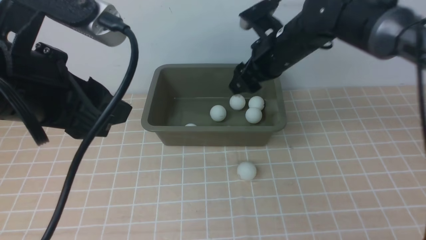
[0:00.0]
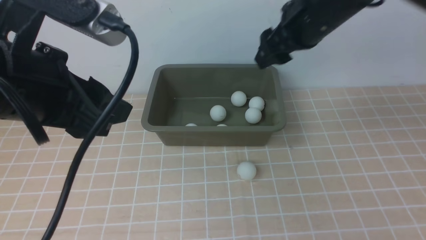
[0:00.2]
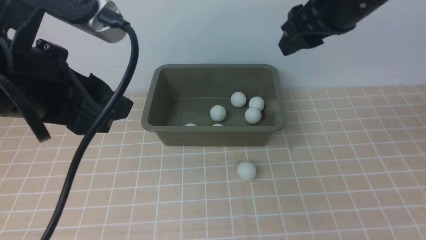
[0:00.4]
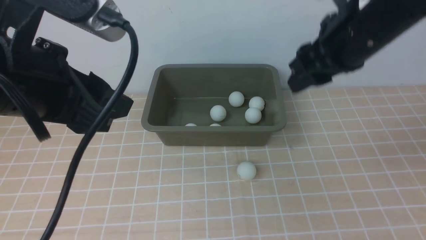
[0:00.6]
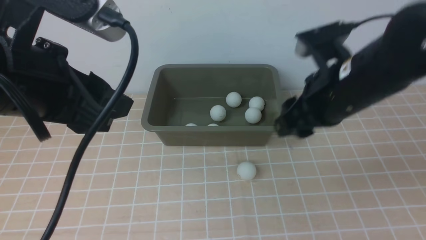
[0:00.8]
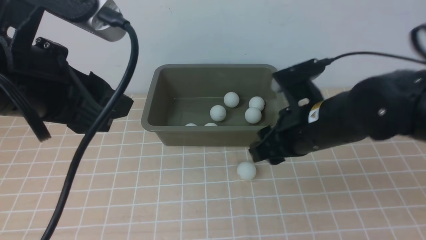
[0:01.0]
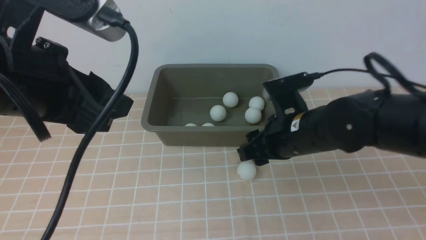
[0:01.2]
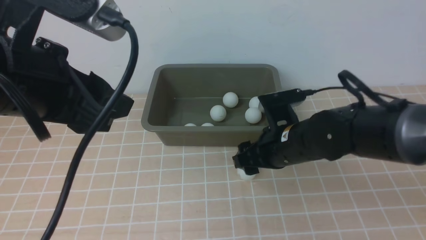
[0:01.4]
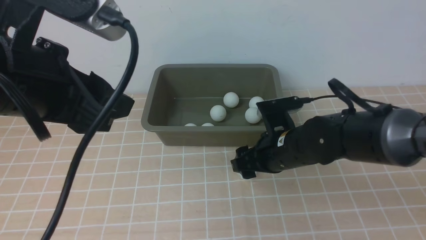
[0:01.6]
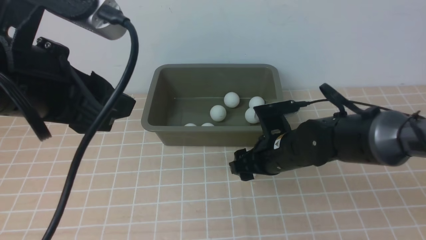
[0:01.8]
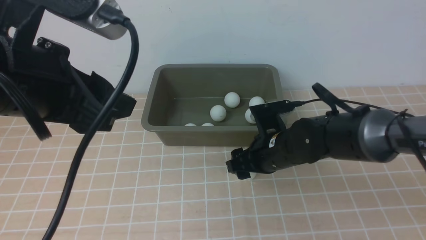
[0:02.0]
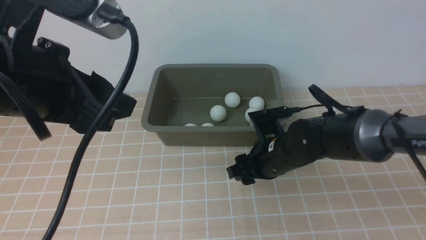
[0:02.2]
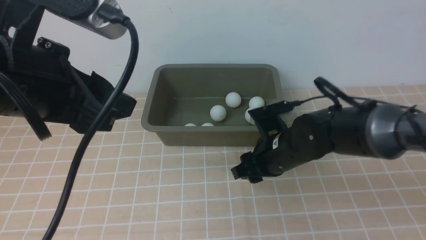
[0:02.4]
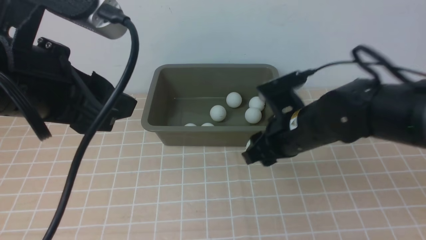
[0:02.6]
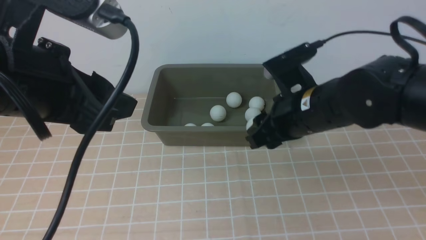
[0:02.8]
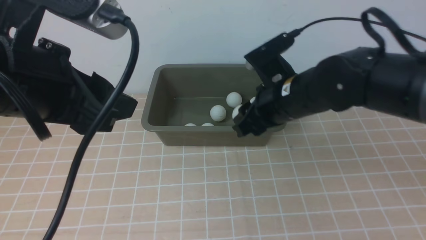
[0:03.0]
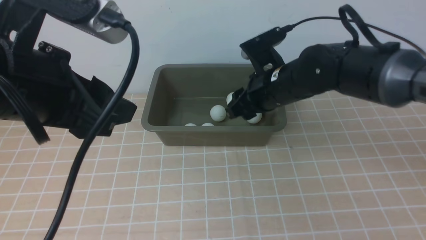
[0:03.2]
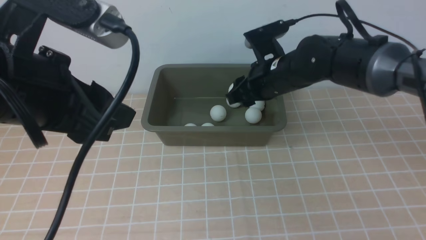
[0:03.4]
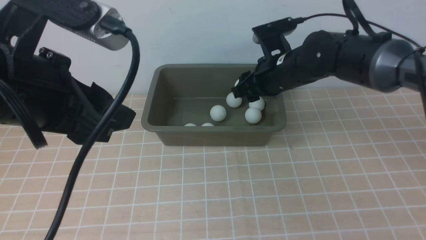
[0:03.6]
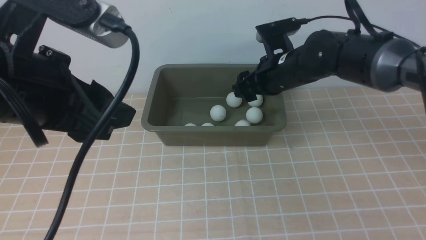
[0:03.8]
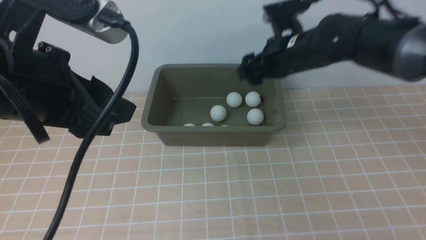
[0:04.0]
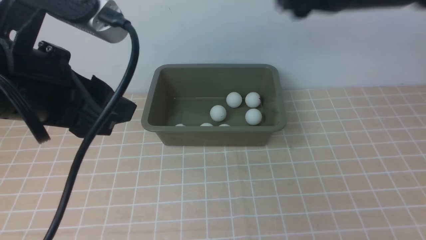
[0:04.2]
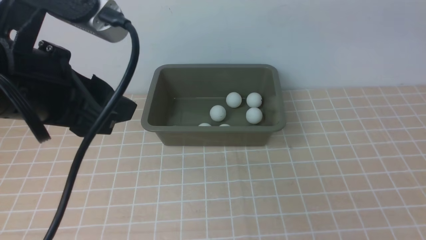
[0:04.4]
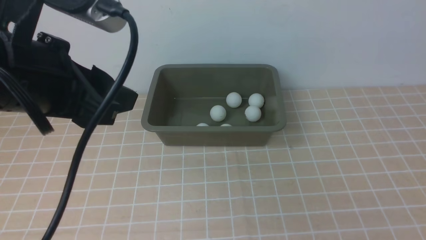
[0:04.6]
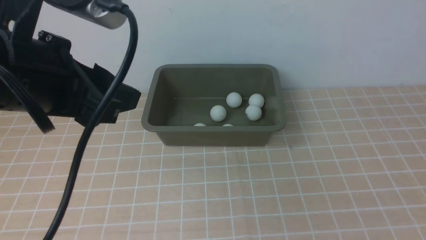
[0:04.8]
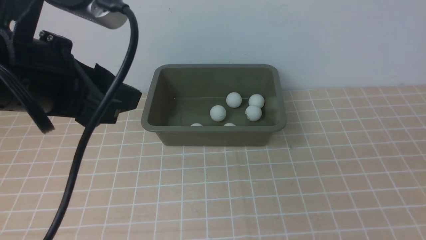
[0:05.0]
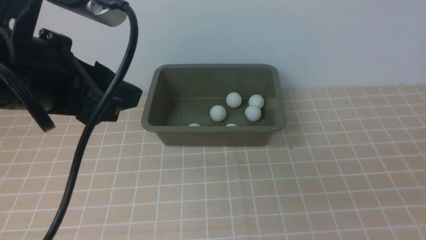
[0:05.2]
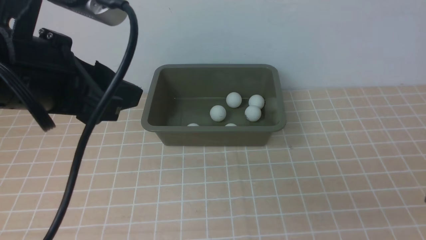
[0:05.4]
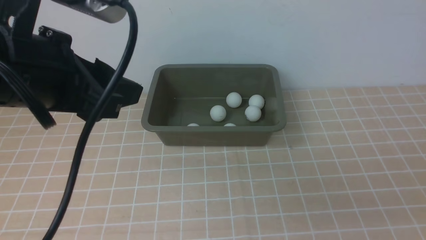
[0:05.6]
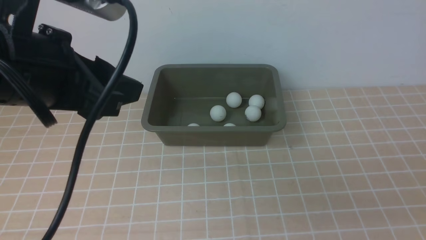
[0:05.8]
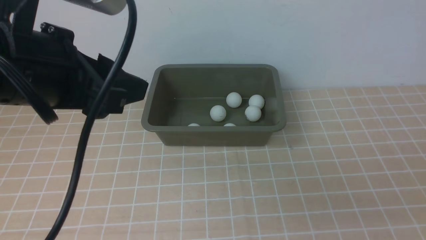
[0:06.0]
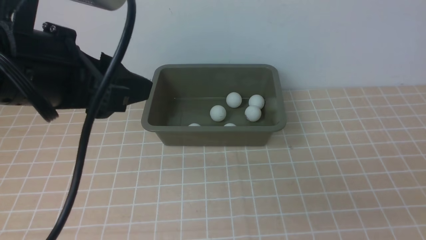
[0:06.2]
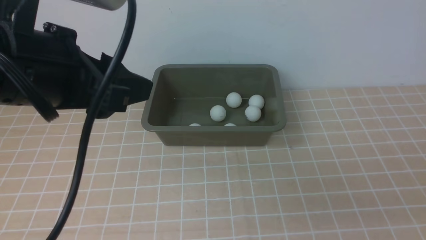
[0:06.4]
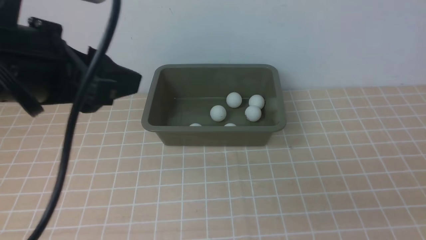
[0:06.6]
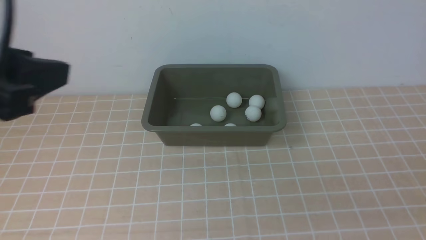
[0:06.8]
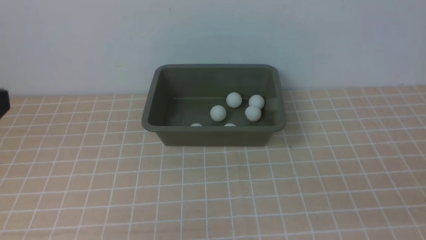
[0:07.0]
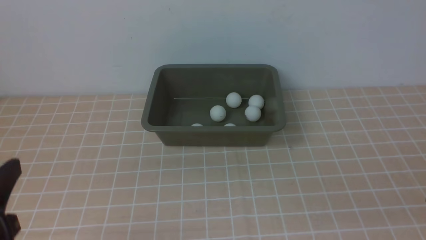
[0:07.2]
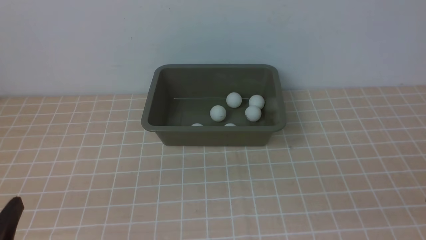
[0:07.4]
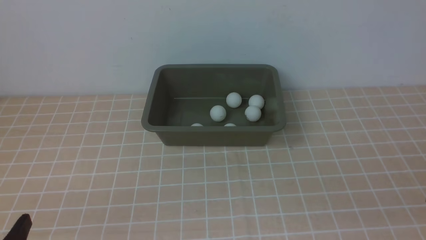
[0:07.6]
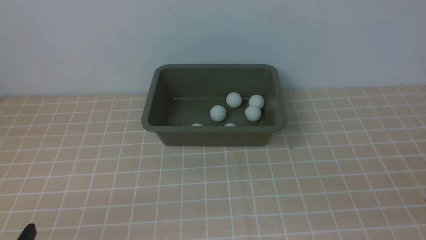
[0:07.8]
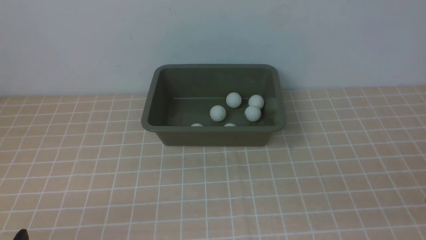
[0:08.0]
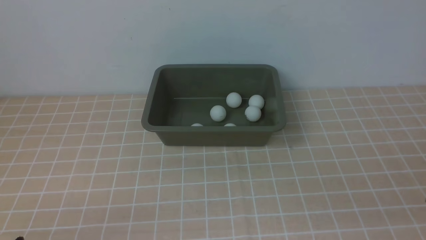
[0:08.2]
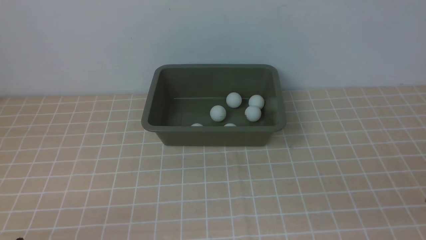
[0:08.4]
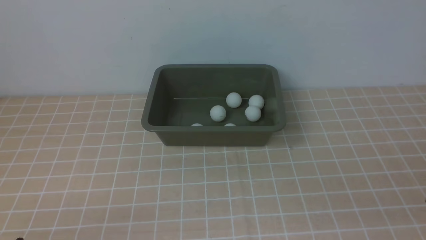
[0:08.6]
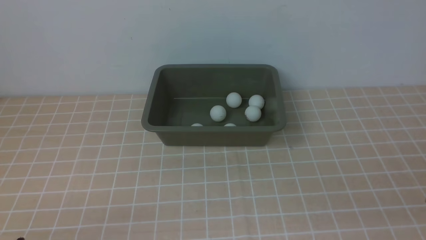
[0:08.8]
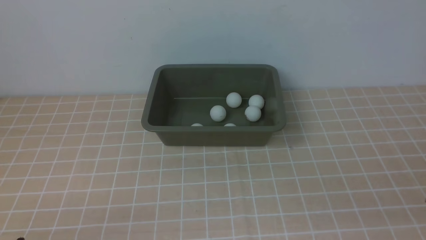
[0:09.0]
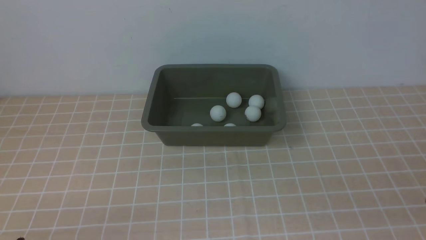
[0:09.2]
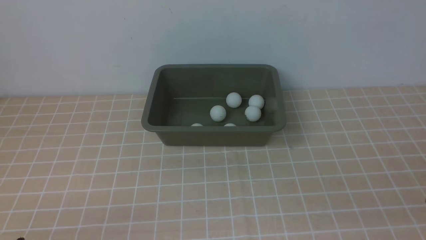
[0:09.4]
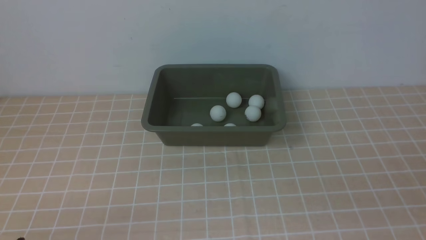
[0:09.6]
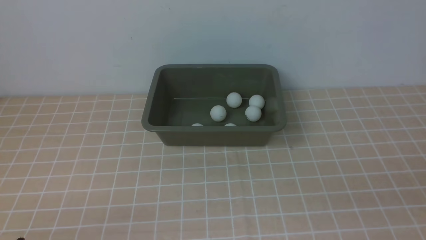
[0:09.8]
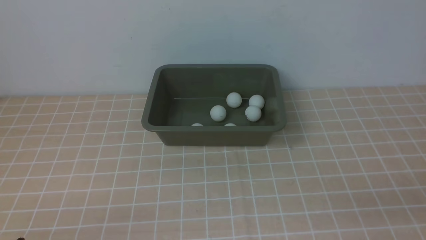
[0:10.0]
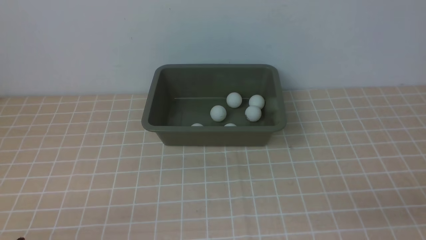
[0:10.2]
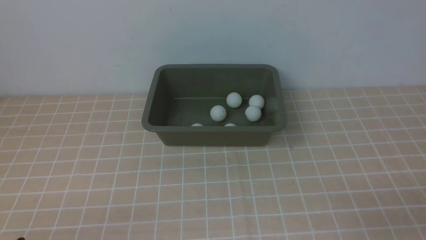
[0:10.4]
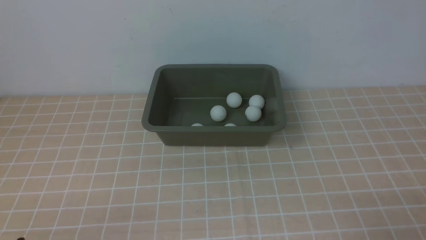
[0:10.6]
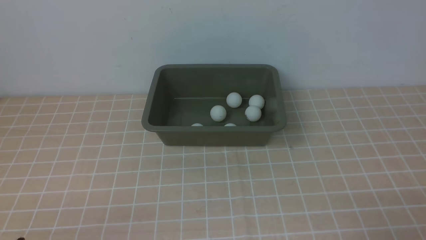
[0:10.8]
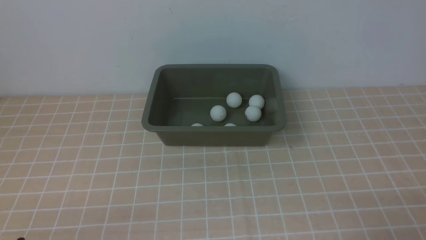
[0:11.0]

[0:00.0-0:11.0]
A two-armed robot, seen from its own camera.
Step, 0:00.2 to 0:02.6: use the right arm to clamp the table tennis ball closest to it.
Step, 0:02.8 to 0:04.0: use the right arm to put the table tennis ball into the box.
0:00.0 to 0:01.6: The right gripper moves downward and backward, about 15 cm.
0:01.6 to 0:03.2: The right gripper moves upward and forward, roughly 10 cm.
0:03.2 to 0:04.8: The right gripper shifts some 35 cm backward, to the right and upward.
0:06.2 to 0:07.8: The left gripper is displaced downward, backward and to the left by approximately 30 cm.

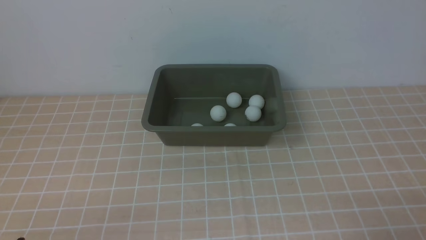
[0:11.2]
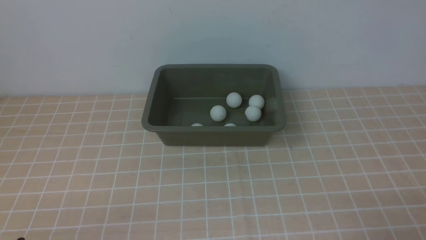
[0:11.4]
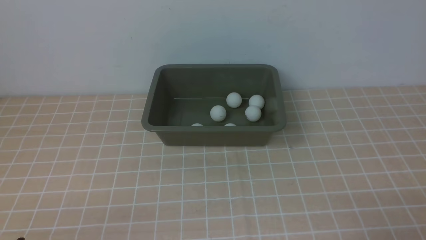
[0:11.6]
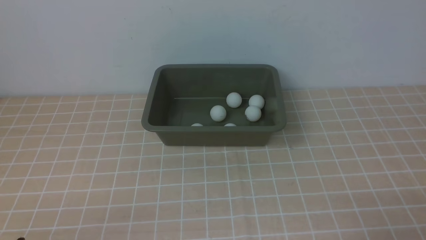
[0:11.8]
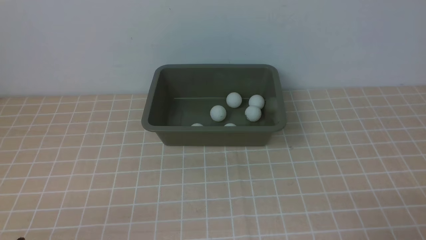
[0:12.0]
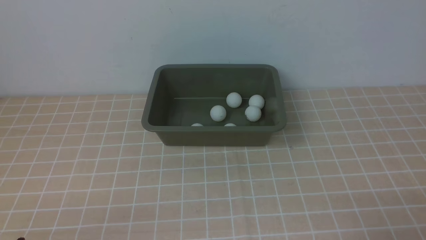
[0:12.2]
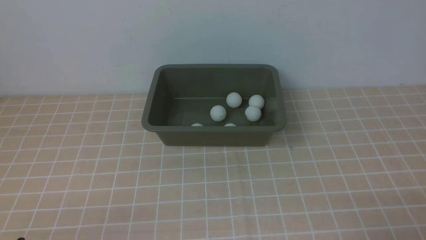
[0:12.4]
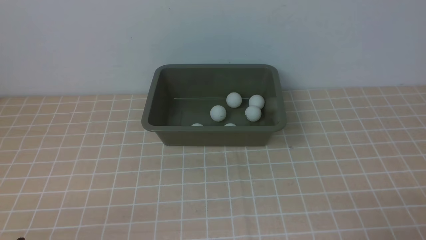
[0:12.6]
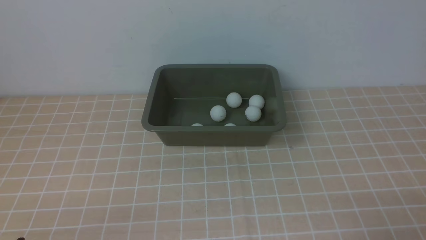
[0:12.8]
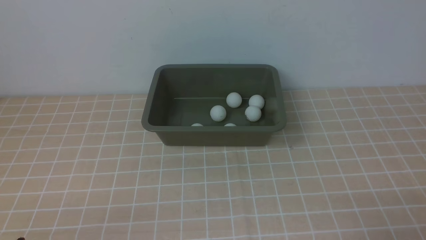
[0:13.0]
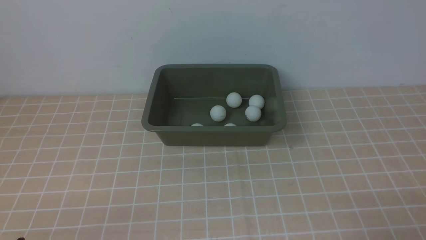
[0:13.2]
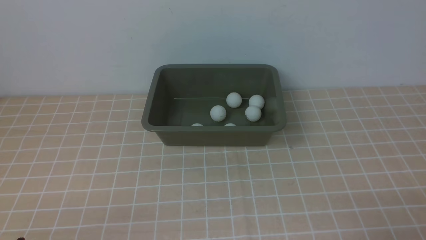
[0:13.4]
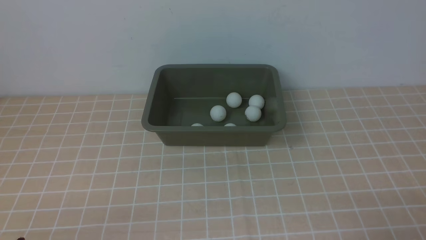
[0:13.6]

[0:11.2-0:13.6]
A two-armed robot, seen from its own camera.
0:11.2 to 0:13.6: Both grippers stay about where they are.

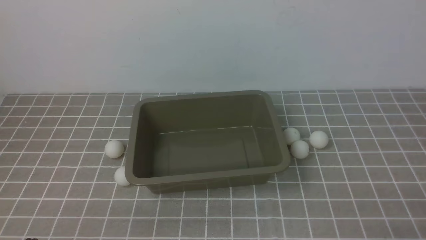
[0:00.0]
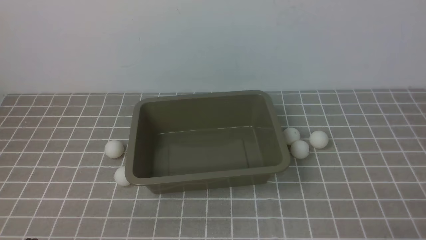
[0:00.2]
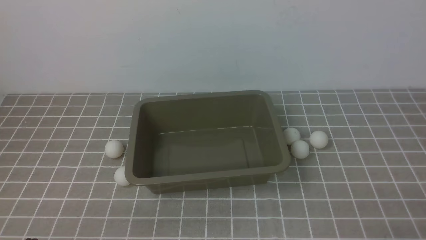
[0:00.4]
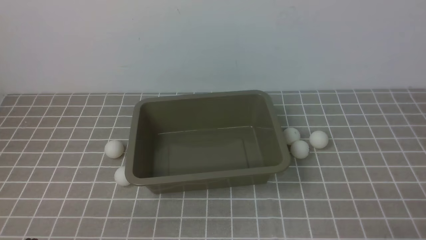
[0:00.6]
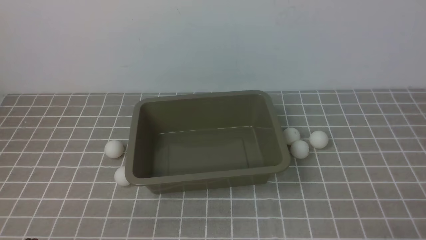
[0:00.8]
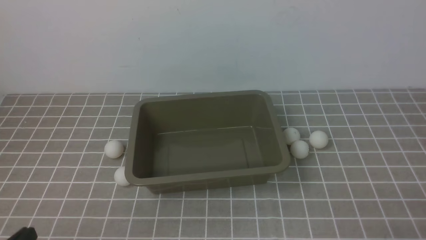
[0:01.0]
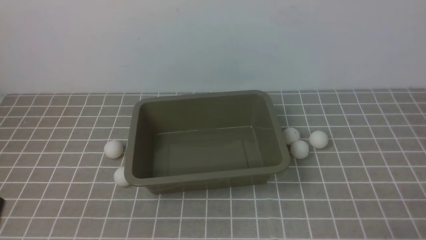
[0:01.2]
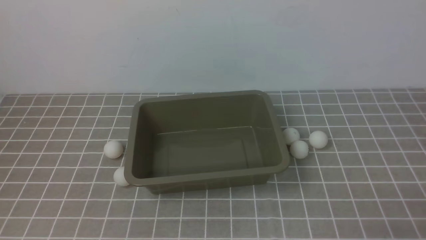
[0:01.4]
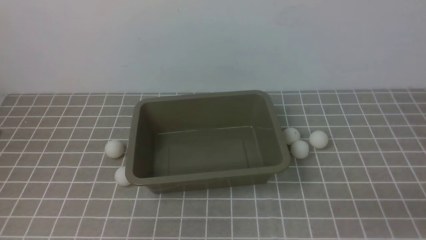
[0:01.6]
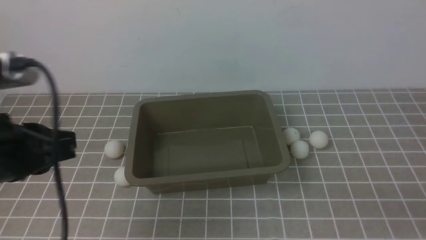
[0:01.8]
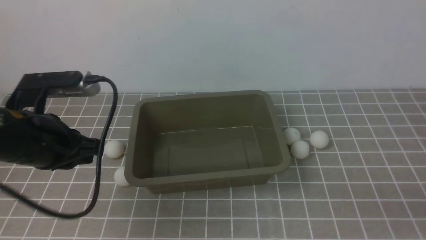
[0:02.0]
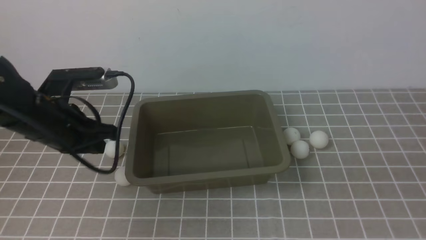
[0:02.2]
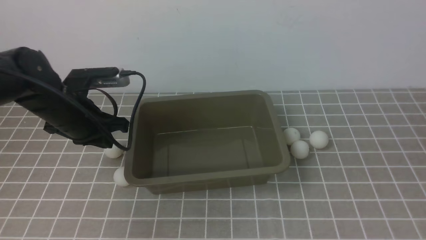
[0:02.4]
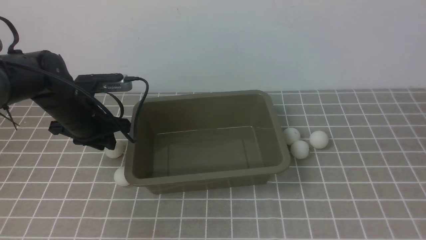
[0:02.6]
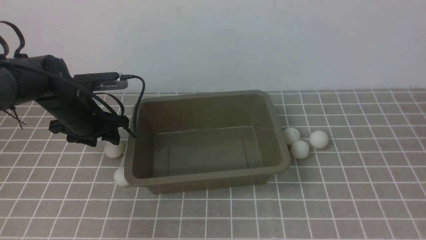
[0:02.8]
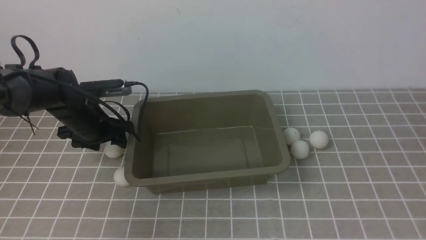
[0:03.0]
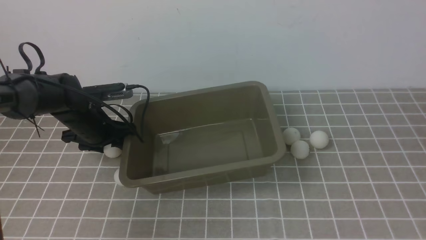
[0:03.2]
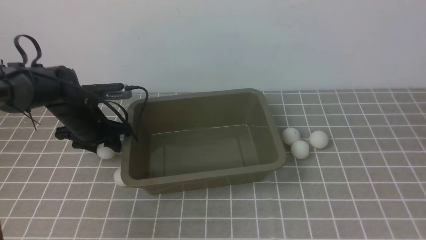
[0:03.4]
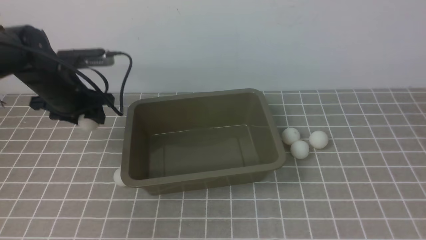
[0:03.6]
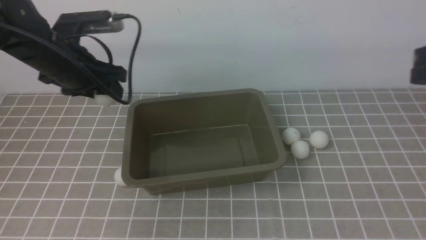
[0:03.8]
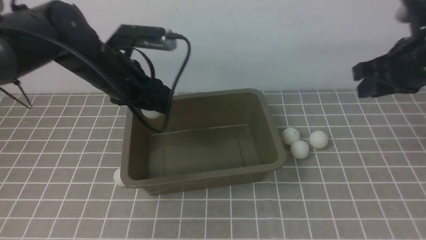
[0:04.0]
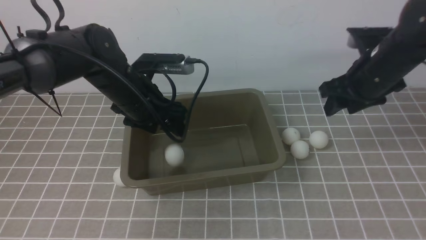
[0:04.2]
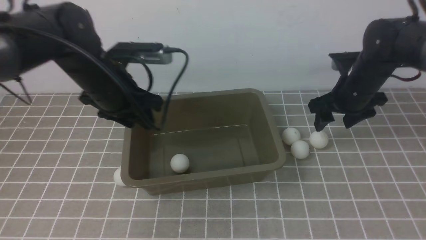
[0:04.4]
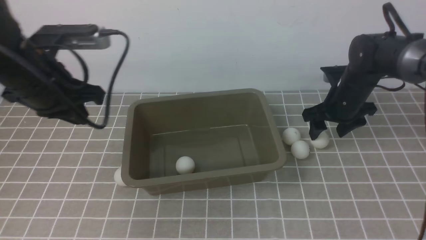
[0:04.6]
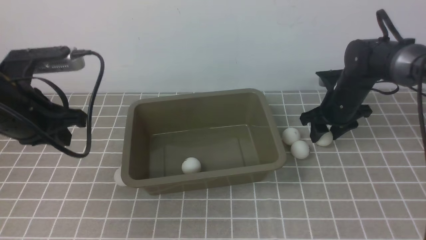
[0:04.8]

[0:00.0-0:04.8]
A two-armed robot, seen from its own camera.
Step, 0:00.0 to 0:03.4: use the left arm to clamp the table tennis ball closest to it.
Step, 0:03.6 to 0:04.2: use the left arm to put the table tennis ball into the box.
0:01.6 to 0:03.2: The right gripper travels upward by some 15 cm. The left gripper shifts roughly 35 cm forward and downward, and opens up.
0:03.2 to 0:04.8: The left gripper is displaced upward and backward by some 15 cm, and closes its fingers; the right gripper heads forward and downward, covering roughly 40 cm, and opens.
